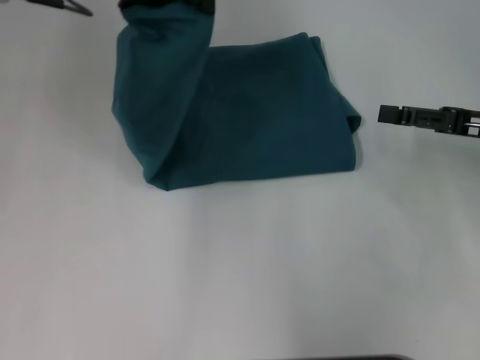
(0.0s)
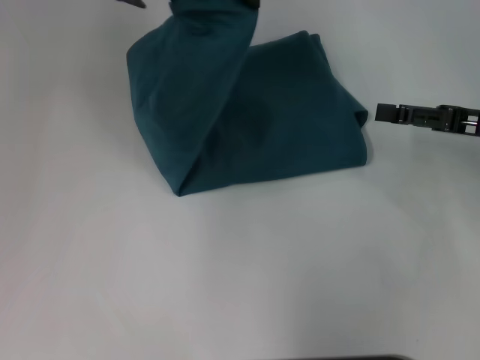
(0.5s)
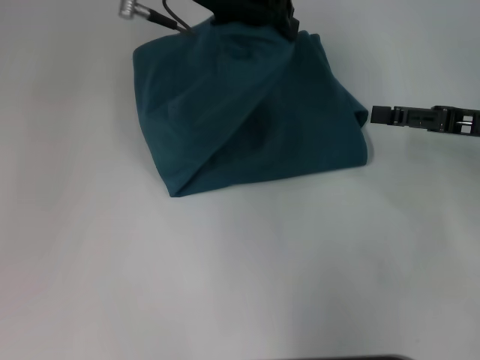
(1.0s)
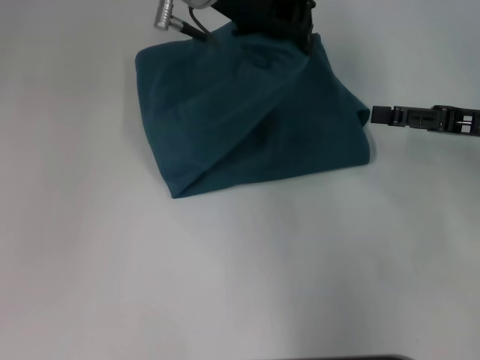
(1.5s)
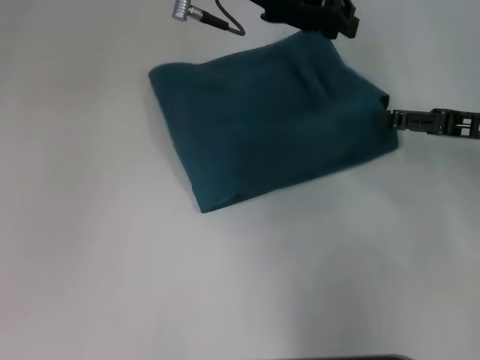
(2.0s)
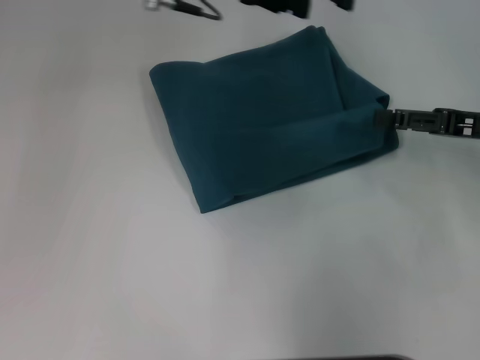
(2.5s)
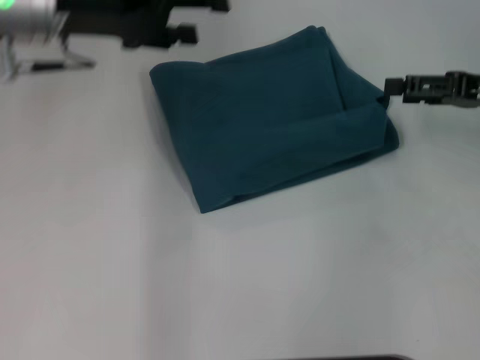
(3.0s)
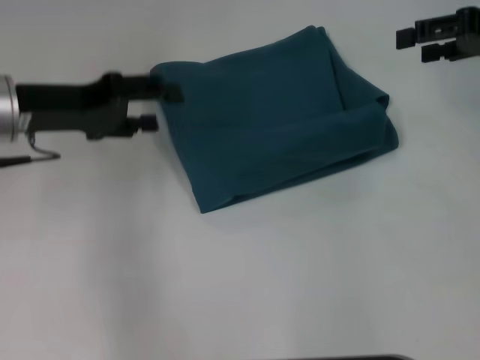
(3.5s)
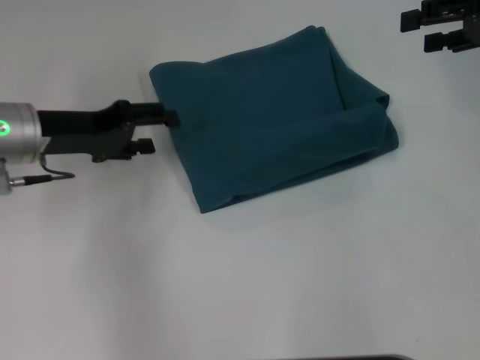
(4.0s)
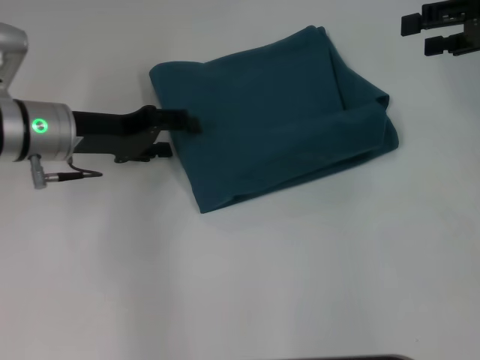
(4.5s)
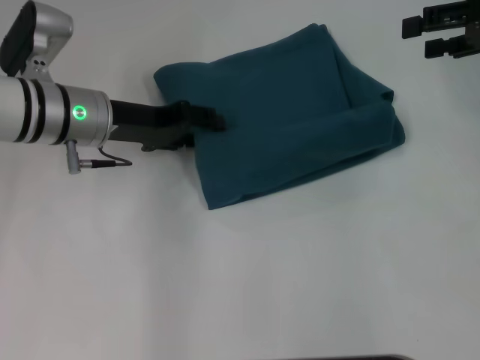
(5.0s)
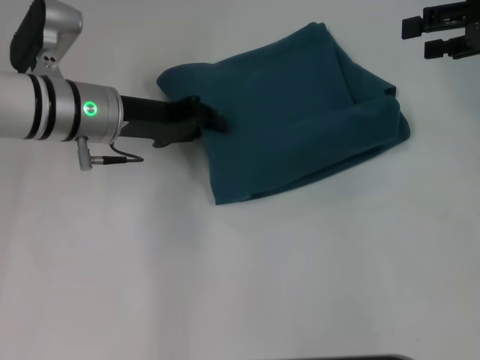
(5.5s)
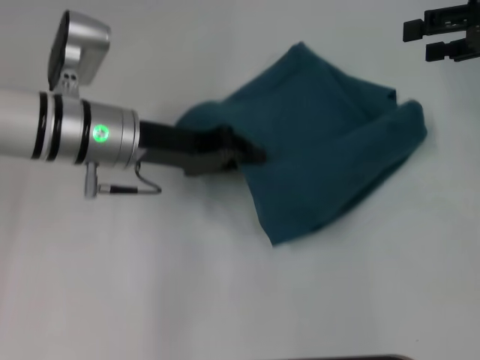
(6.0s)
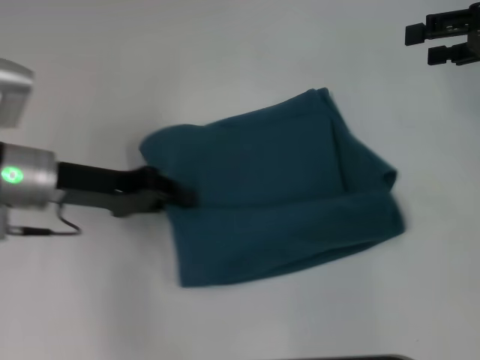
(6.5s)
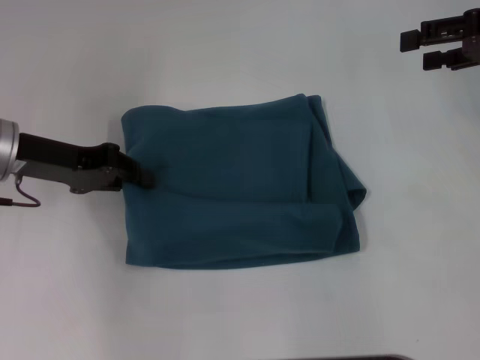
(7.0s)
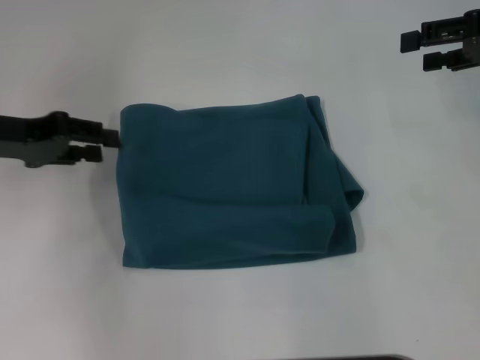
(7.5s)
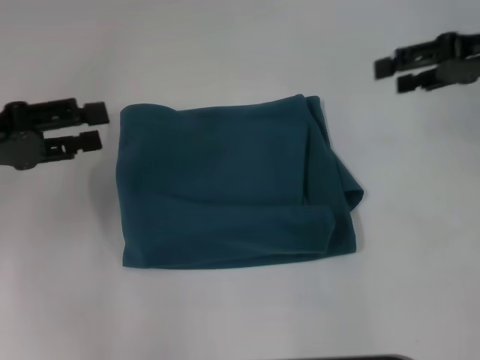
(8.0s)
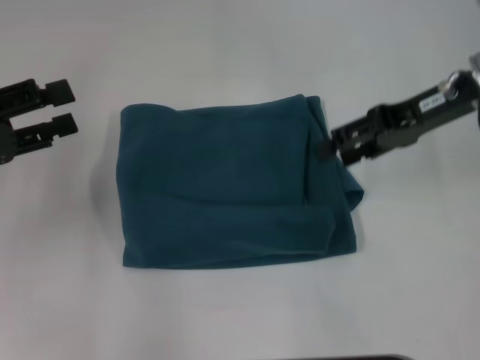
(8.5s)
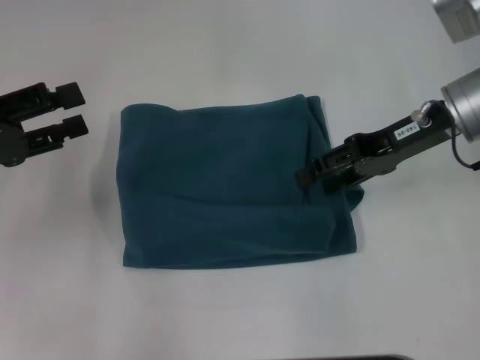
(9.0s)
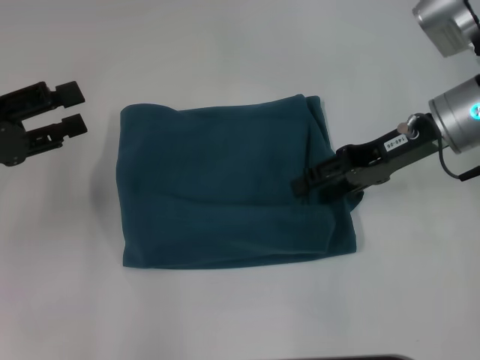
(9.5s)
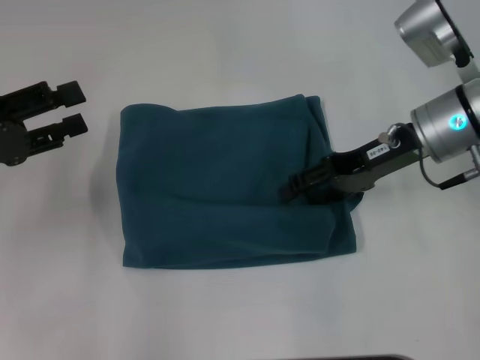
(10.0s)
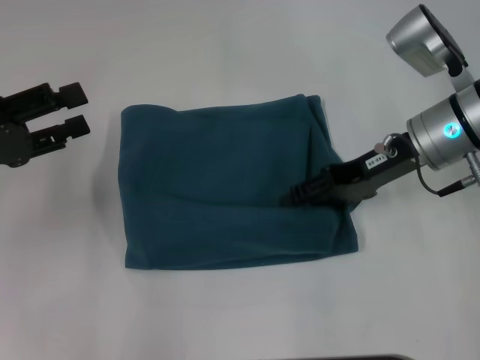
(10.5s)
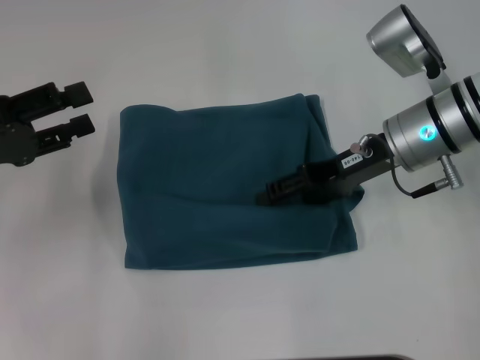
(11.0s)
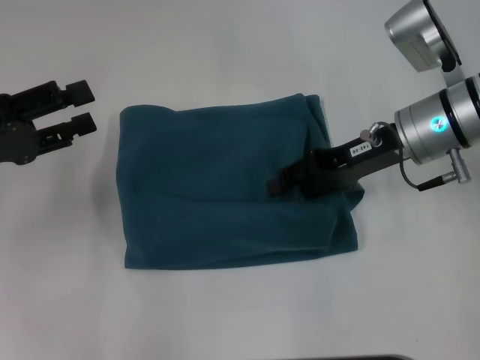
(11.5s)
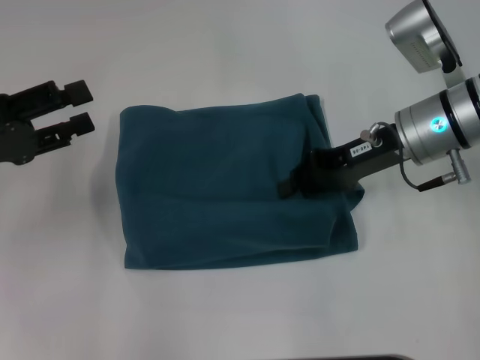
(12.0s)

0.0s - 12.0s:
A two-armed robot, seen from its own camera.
Step, 0.0s - 2.0s: Fold the clothes to the left.
0.0s - 2.0s: The left gripper shifts approximately 10 cm to the right.
2.0s - 4.0s: The right gripper travels upward and forward by approximately 15 cm, while the left gripper shifts roughly 25 cm to the left and downward, and opens up.
4.0s - 6.0s: The left gripper travels to the right by about 10 cm, and closes its fingers.
6.0s - 8.0s: The left gripper shifts approximately 15 cm to the left, and opens its fingers.
8.0s - 10.0s: The right gripper moves to the left and downward, roughly 15 cm.
10.0s - 12.0s: The right gripper closes.

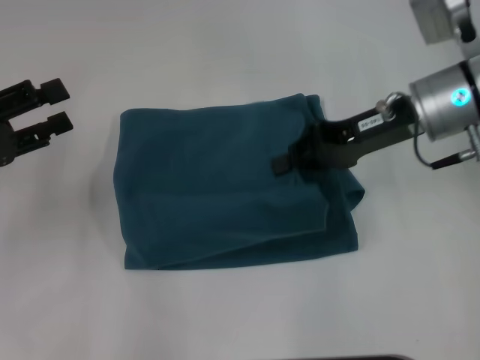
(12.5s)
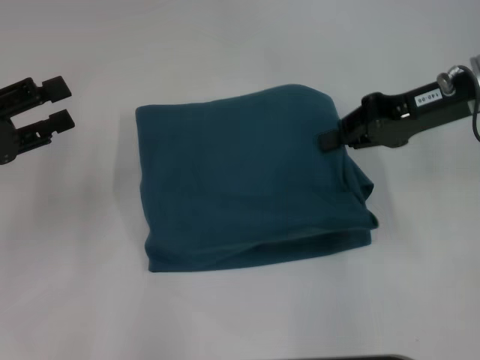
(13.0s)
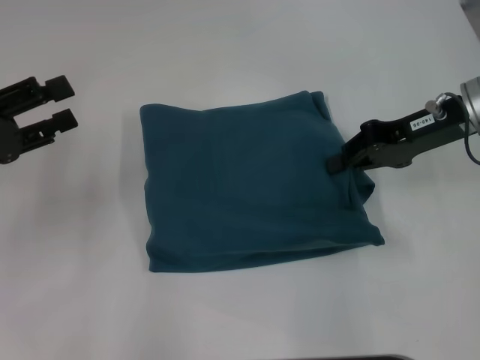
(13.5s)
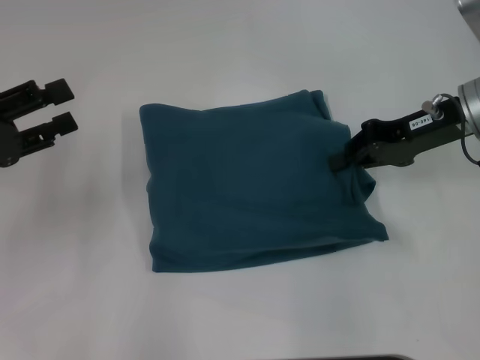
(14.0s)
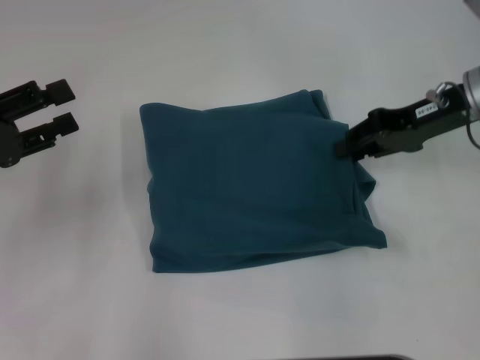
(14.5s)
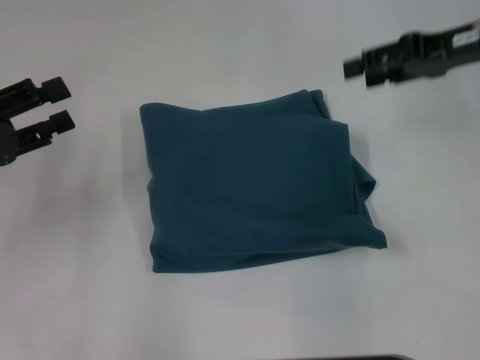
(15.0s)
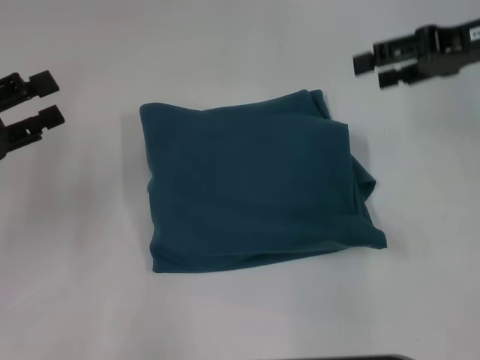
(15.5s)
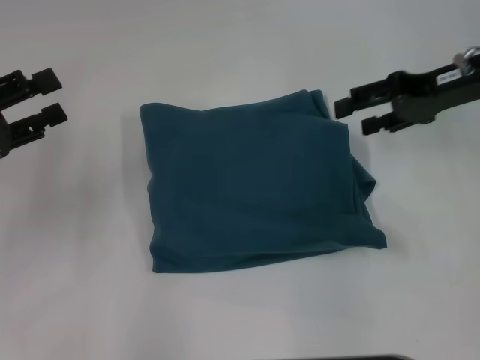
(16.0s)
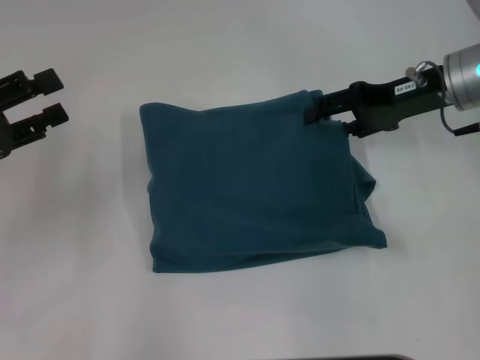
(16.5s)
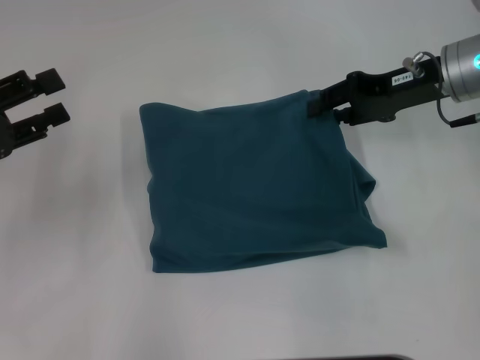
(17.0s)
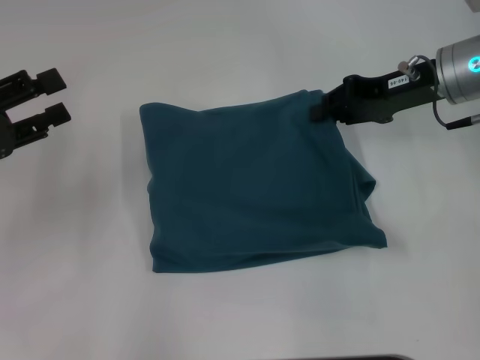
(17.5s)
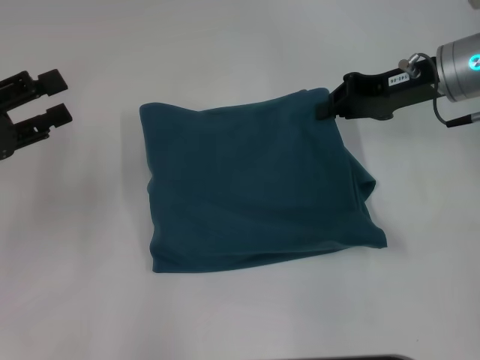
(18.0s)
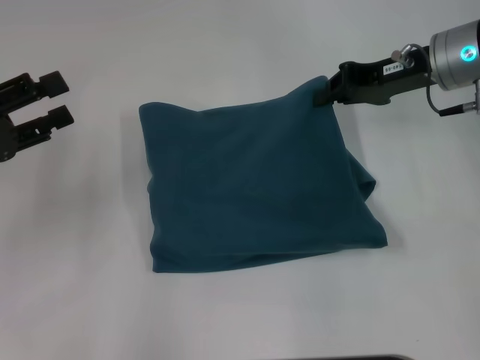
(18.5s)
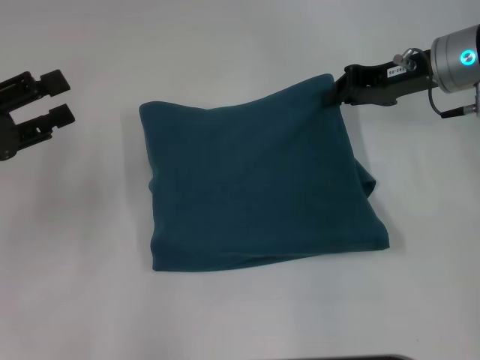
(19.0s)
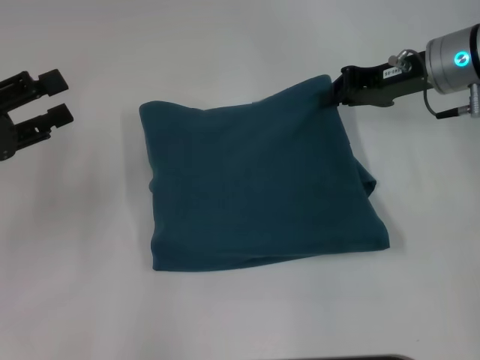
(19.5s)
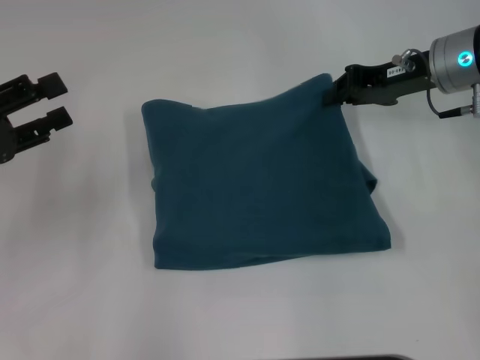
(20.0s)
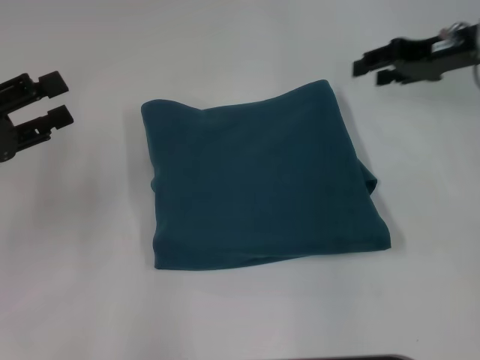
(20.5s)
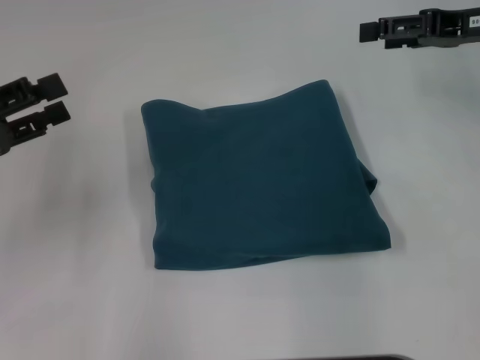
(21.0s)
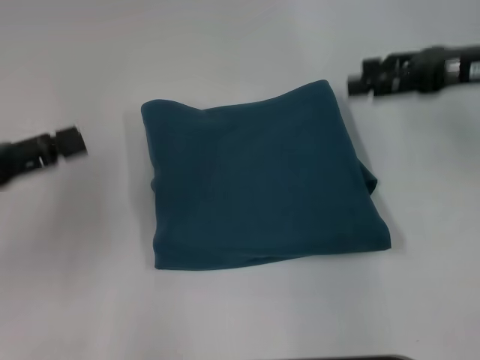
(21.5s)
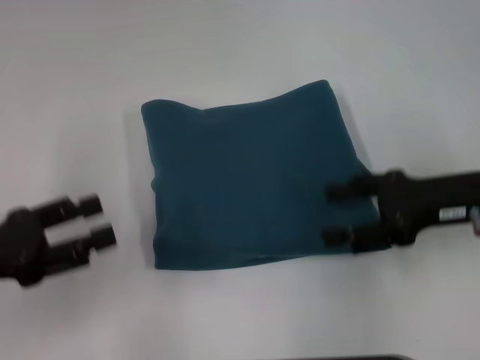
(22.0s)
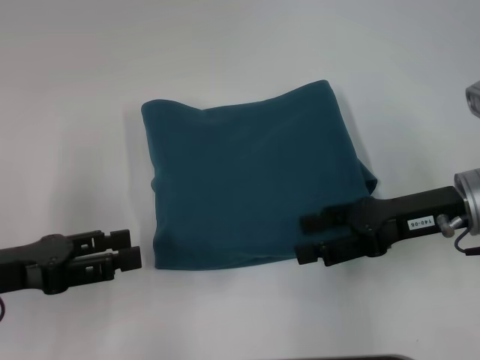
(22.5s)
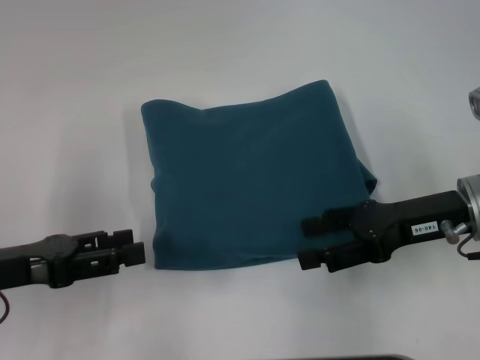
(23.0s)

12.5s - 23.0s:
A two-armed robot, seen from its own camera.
12.5s - 14.5s: The right gripper moves to the right, approximately 5 cm.
14.5s - 16.5s: The right gripper opens its fingers.
16.5s - 19.0s: The right gripper closes its fingers.
19.0s - 21.0s: The right gripper moves to the right, roughly 5 cm, and opens up.
21.0s - 23.0s: The left gripper moves backward, some 5 cm. The right gripper travels backward, downward and to the left by some 15 cm.

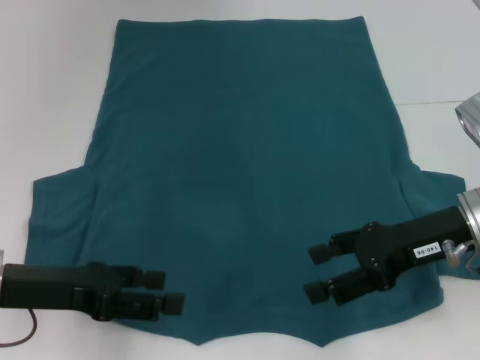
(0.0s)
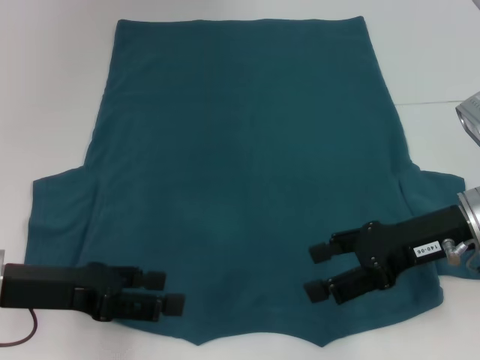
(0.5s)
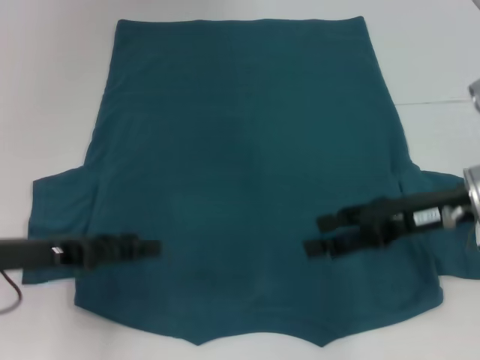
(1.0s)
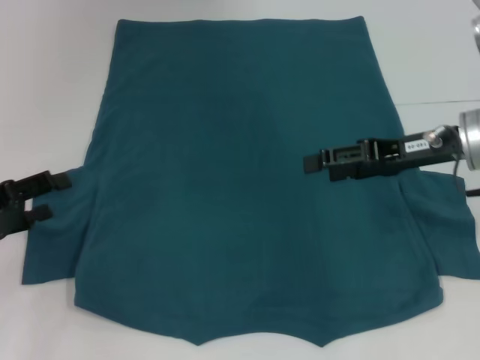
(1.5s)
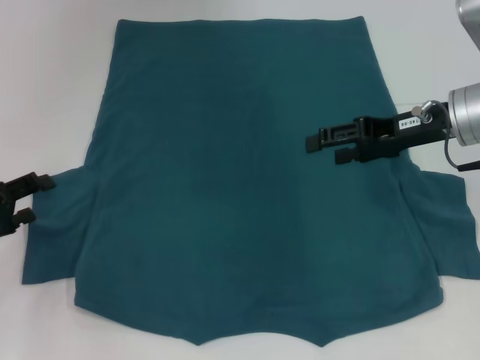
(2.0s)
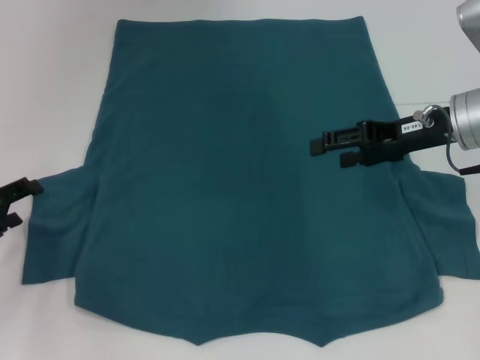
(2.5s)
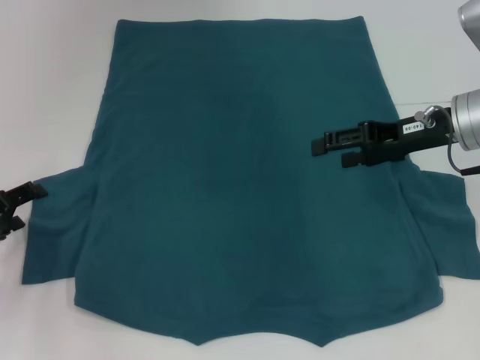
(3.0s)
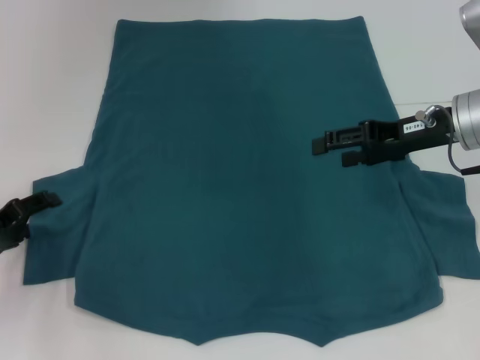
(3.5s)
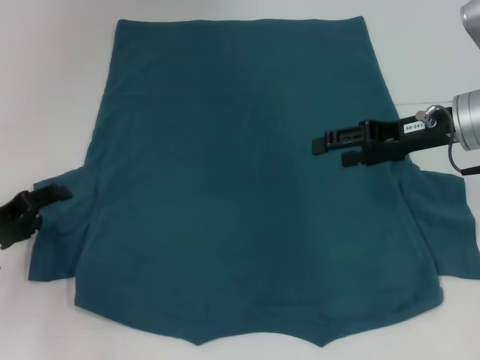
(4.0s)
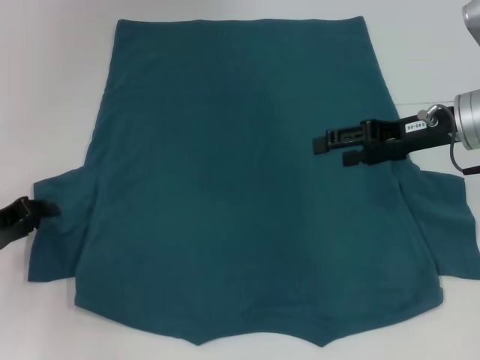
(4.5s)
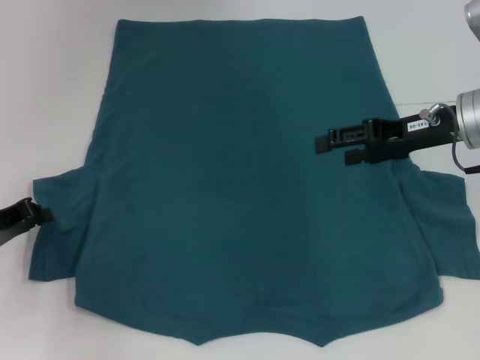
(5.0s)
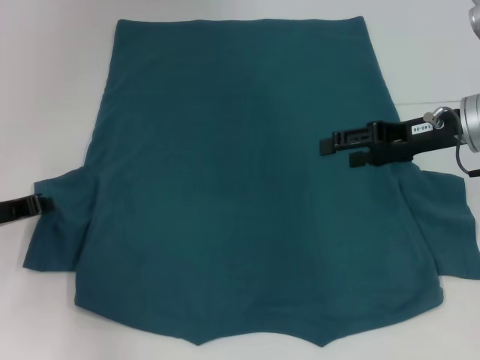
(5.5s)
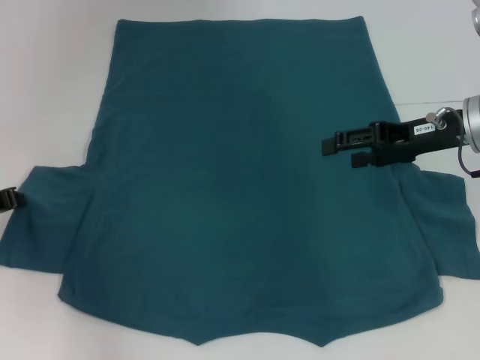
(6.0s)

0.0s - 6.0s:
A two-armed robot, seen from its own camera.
0.0s - 2.0s: The right gripper moves forward, approximately 10 cm. Meanwhile the left gripper travels to the left by about 10 cm.
2.0s - 4.0s: There are only small adjustments of the grippers.
4.0s - 6.0s: The left gripper closes up.
